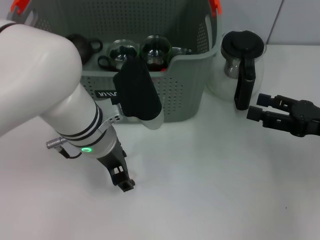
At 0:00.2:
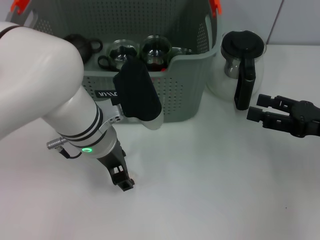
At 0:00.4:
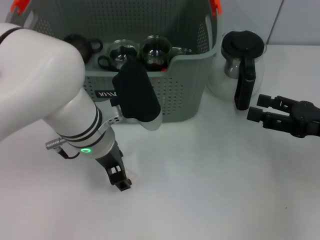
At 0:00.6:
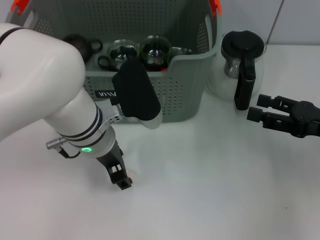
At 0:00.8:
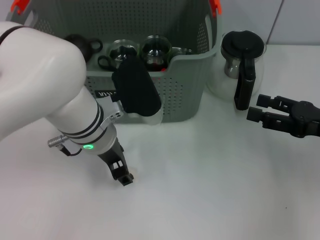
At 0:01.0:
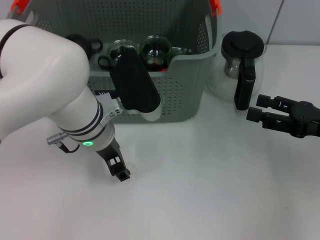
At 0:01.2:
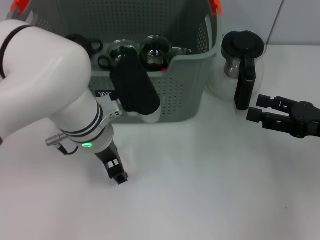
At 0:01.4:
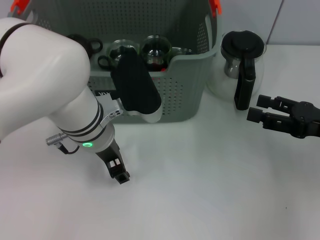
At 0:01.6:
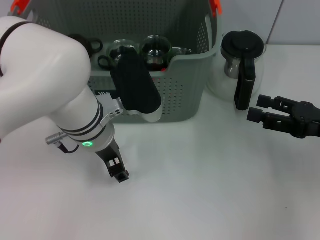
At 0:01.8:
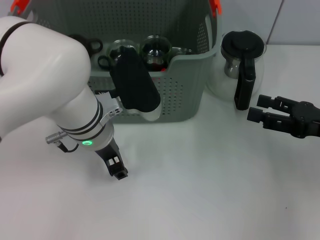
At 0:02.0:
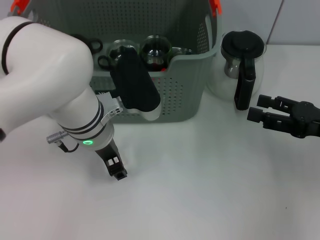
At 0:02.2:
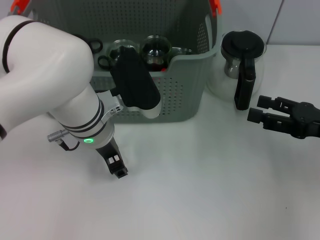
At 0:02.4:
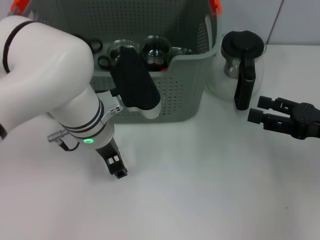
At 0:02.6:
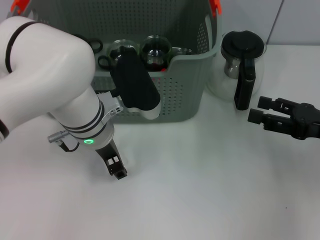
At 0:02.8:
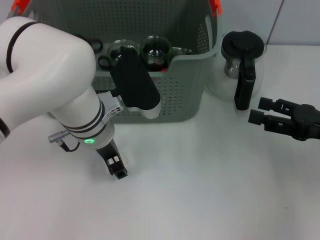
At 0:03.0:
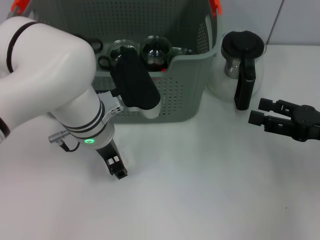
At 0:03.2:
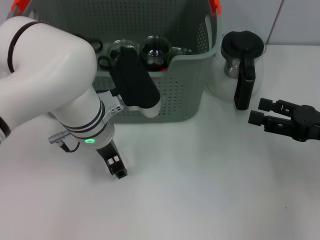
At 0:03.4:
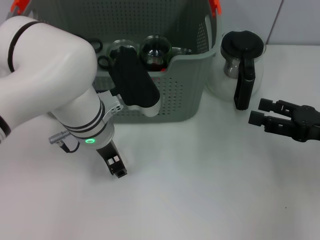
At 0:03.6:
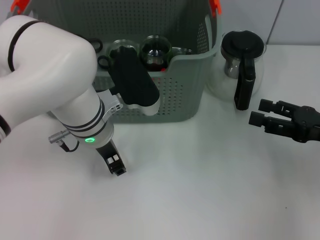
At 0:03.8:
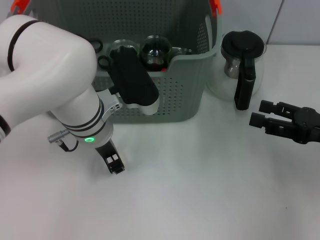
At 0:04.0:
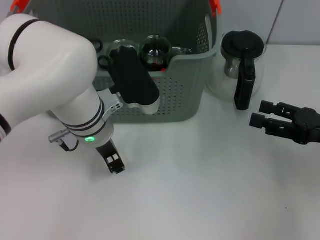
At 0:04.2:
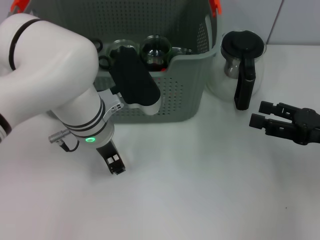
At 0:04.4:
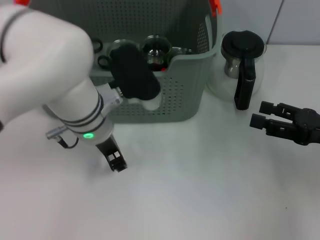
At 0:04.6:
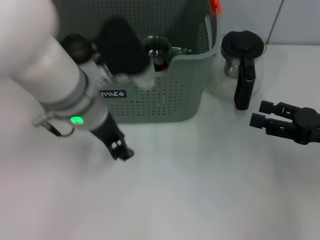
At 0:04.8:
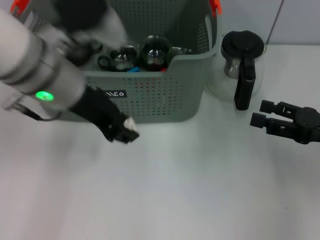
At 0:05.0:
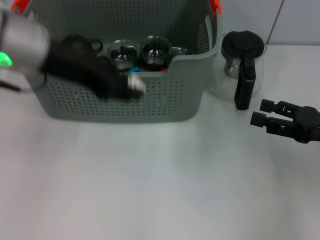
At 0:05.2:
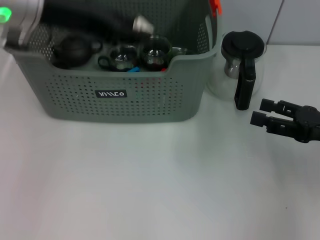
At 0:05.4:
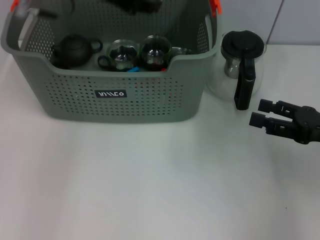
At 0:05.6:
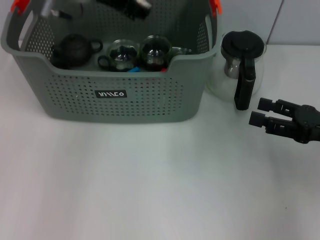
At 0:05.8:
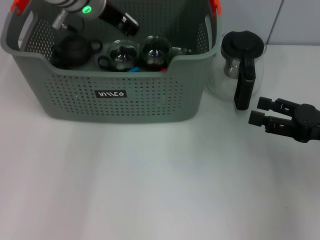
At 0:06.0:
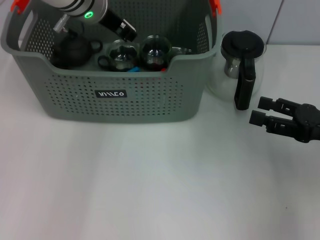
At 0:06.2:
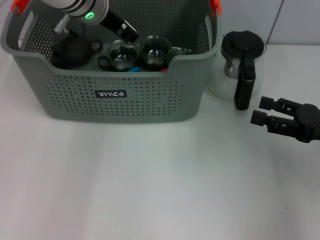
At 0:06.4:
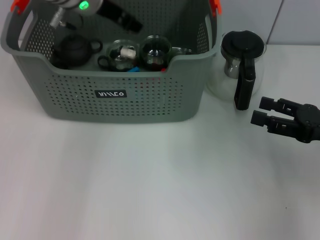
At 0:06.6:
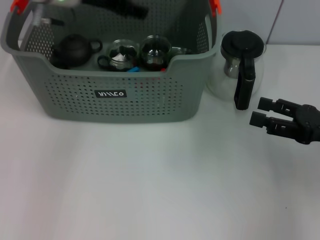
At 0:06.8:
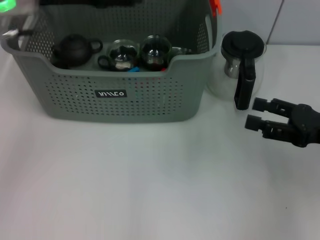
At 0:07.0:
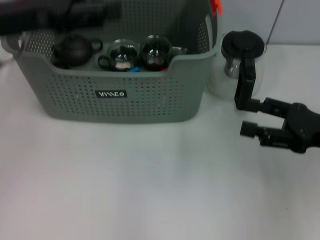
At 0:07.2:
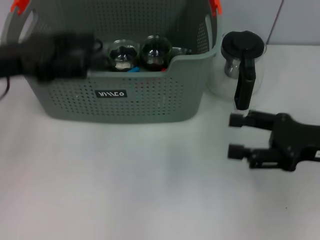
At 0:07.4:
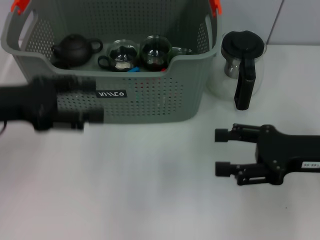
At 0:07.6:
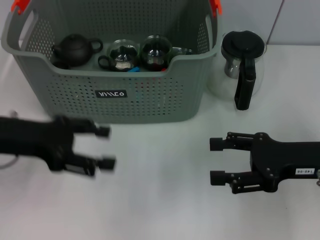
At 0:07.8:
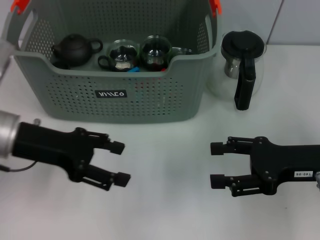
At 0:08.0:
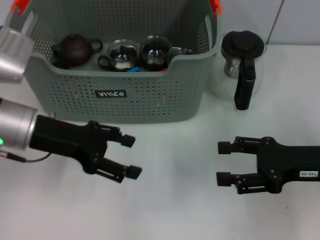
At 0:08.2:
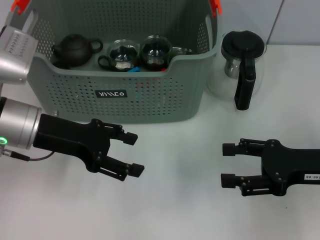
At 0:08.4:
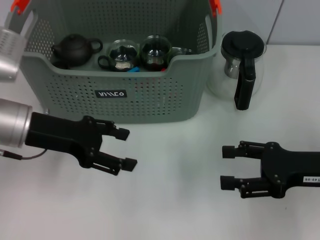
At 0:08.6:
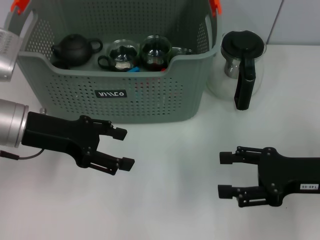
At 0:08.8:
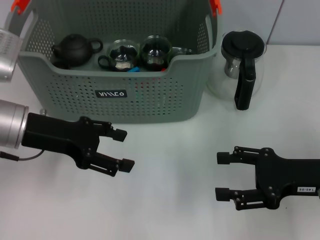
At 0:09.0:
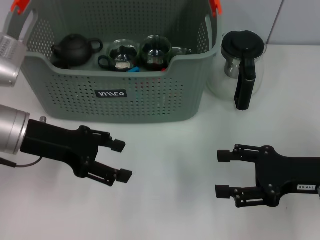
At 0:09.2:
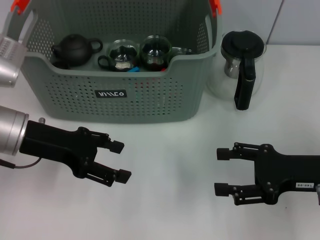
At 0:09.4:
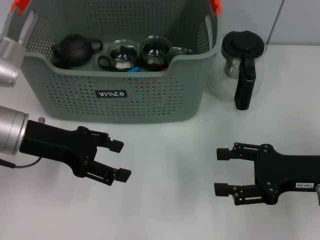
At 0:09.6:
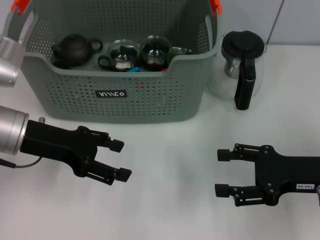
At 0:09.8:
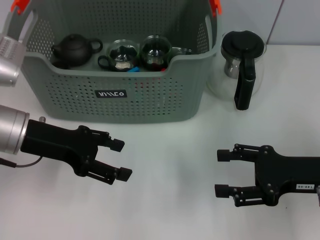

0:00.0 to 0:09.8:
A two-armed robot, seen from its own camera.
Task of the whole recording: pick up the teacup on the table and place it into the storage bin, pick up the block on the table and place it into the storage bin.
Step, 0:00.0 to 0:04.4: Grasp the white block with left gripper.
Step, 0:04.8 to 0:06.4: Place the white block in the storage box with left gripper.
0:00.0 to 0:01.4: The grippers make only small movements.
0:01.4 to 0:02.8: Both grippers stay put.
0:02.8 to 0:04.2: The two grippers keep their place.
0:04.2 to 0:05.6: The left gripper moves upward and forward, about 15 cm.
0:05.6 to 0:07.0: The left gripper shifts some 15 cm to the left and backward, and opens its fingers.
0:07.0 to 0:08.4: The left gripper moves downward, about 10 cm.
0:08.4 to 0:09.8: The grippers make only small movements.
